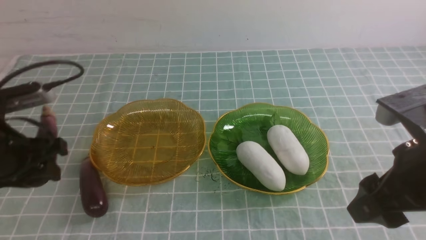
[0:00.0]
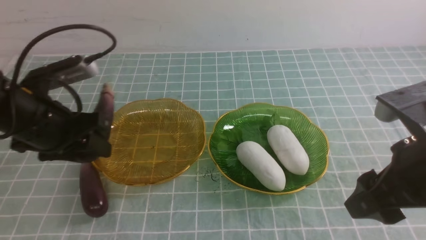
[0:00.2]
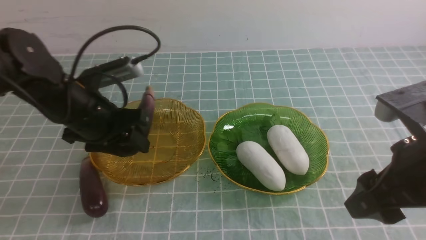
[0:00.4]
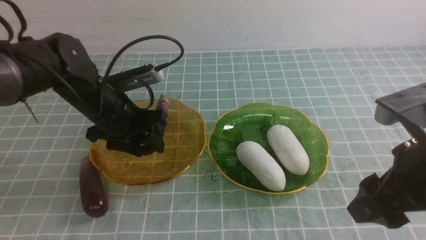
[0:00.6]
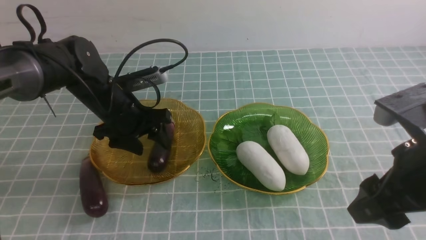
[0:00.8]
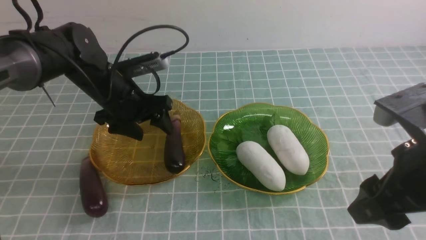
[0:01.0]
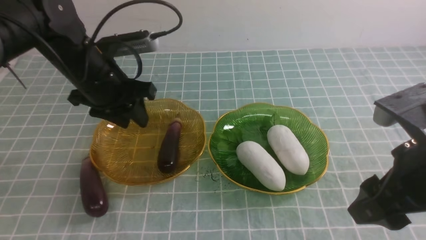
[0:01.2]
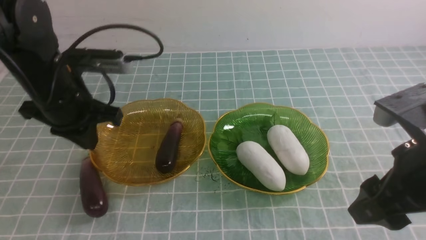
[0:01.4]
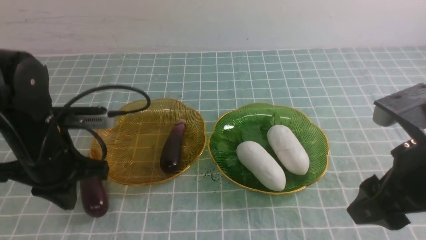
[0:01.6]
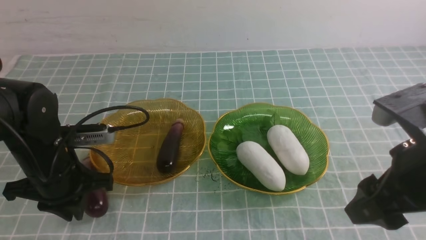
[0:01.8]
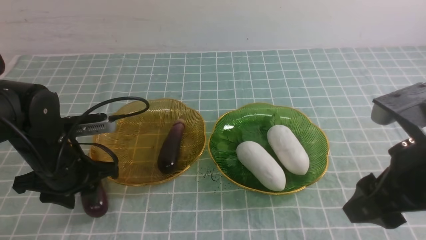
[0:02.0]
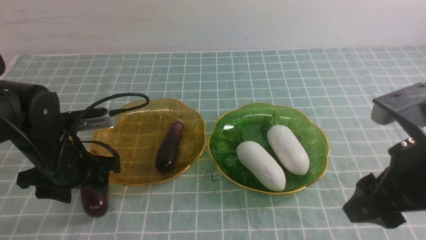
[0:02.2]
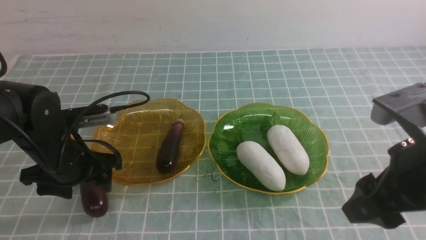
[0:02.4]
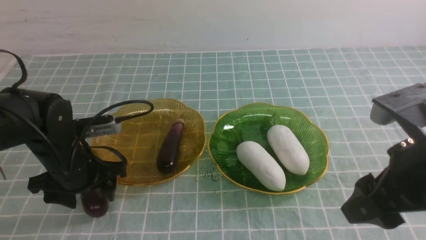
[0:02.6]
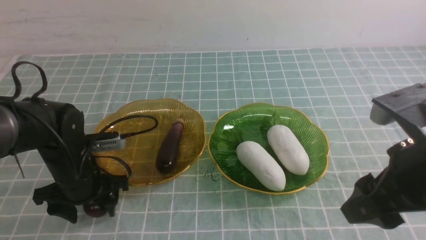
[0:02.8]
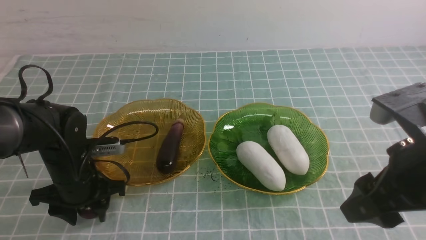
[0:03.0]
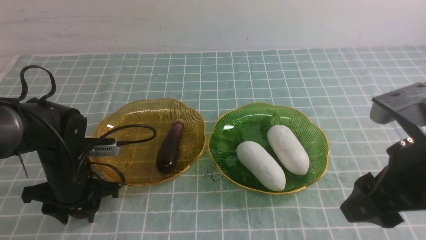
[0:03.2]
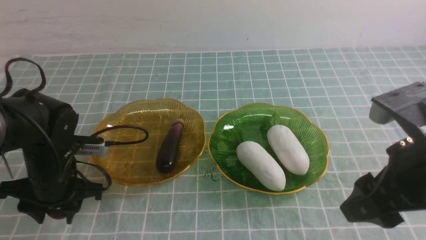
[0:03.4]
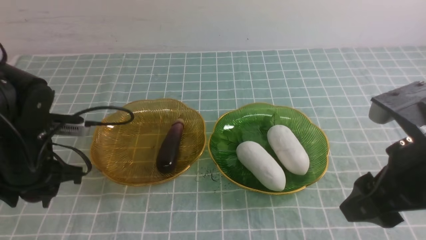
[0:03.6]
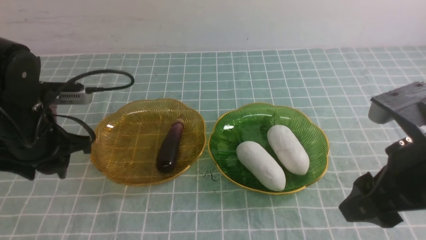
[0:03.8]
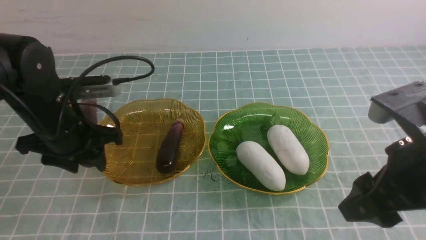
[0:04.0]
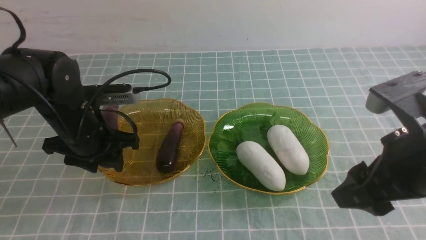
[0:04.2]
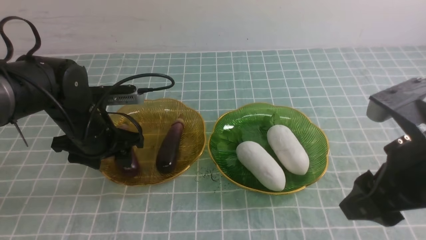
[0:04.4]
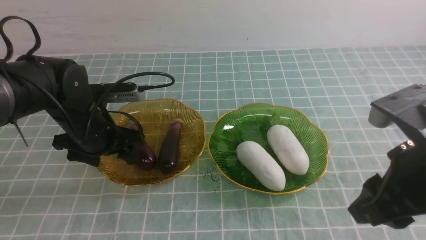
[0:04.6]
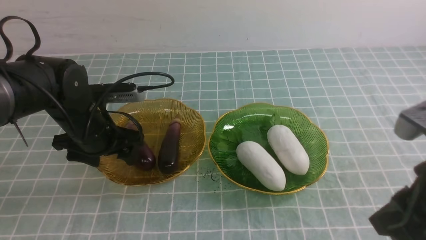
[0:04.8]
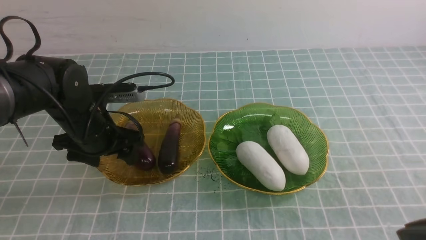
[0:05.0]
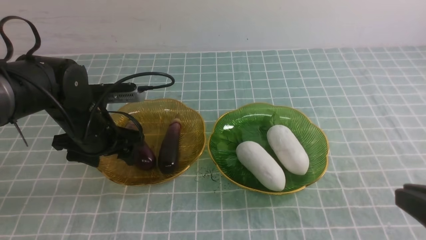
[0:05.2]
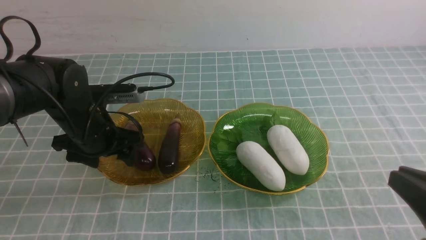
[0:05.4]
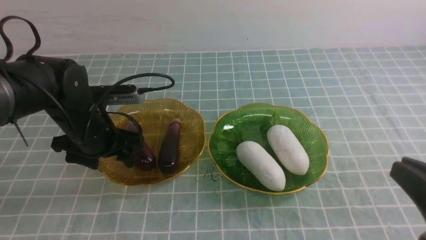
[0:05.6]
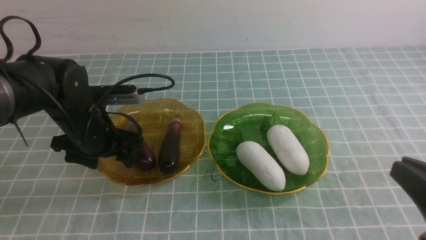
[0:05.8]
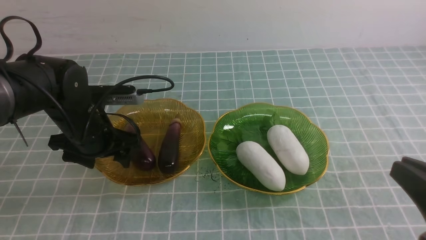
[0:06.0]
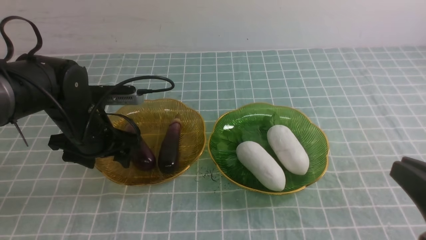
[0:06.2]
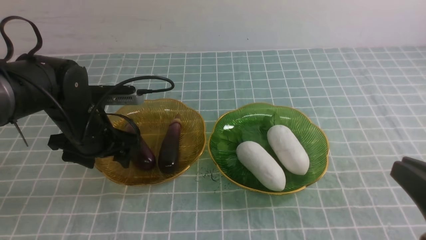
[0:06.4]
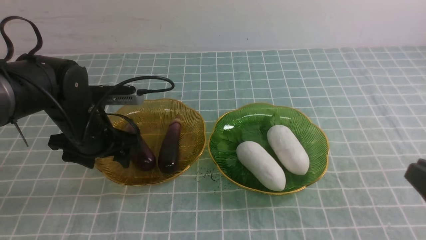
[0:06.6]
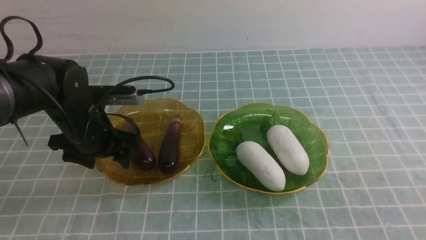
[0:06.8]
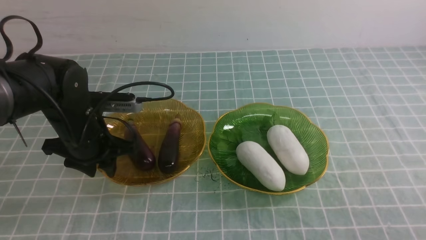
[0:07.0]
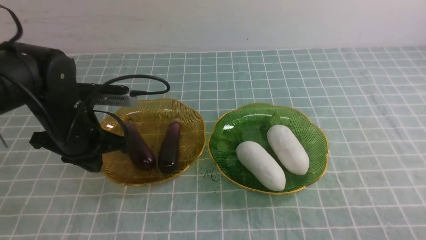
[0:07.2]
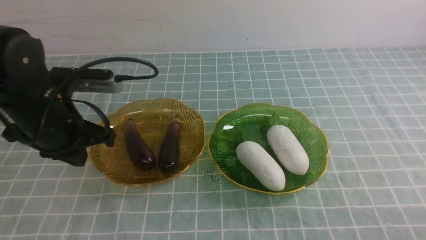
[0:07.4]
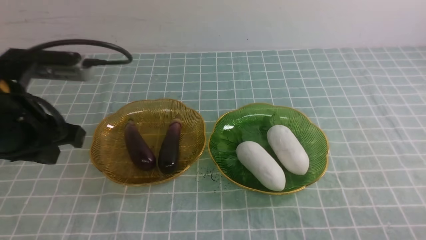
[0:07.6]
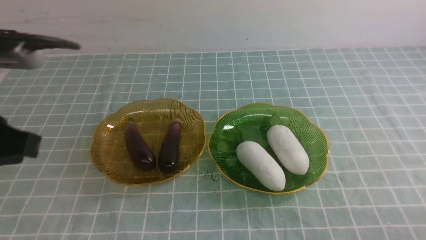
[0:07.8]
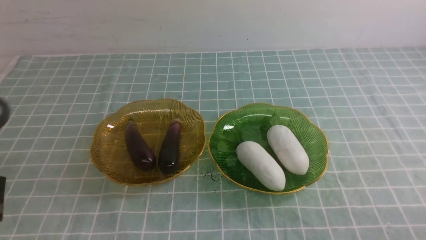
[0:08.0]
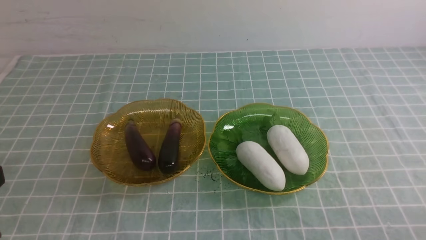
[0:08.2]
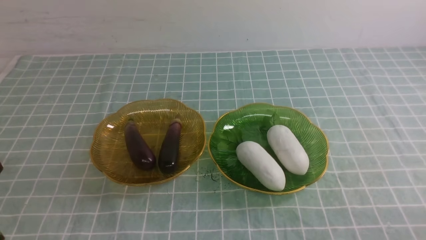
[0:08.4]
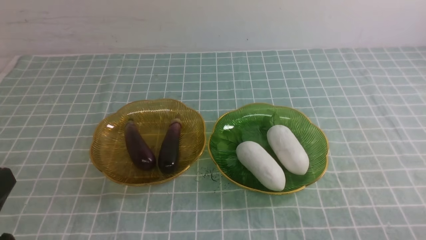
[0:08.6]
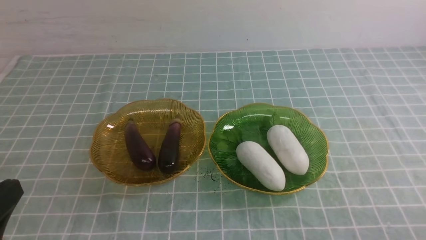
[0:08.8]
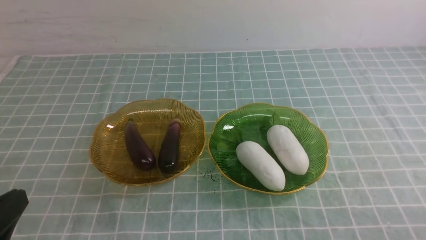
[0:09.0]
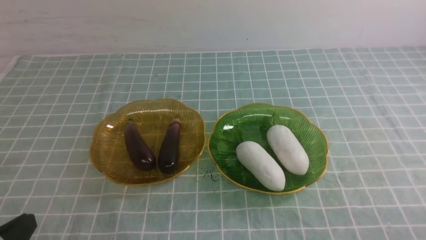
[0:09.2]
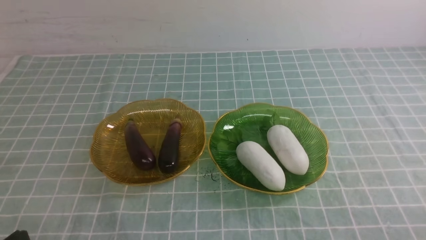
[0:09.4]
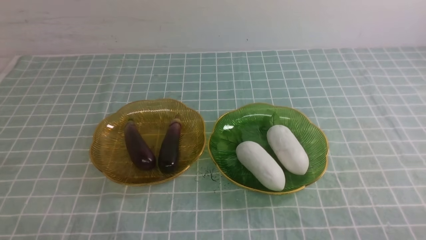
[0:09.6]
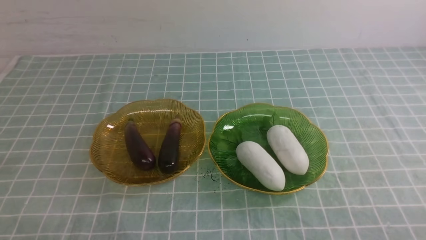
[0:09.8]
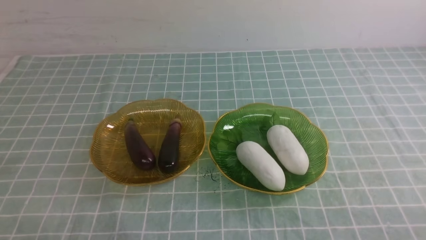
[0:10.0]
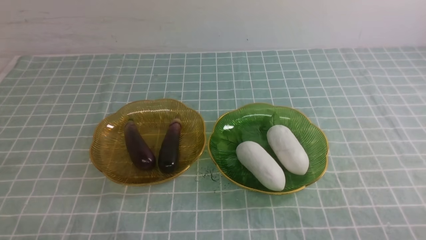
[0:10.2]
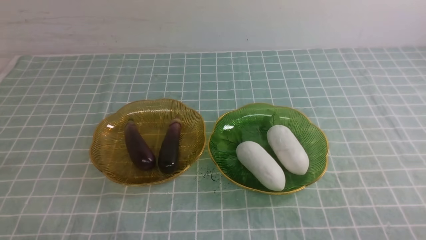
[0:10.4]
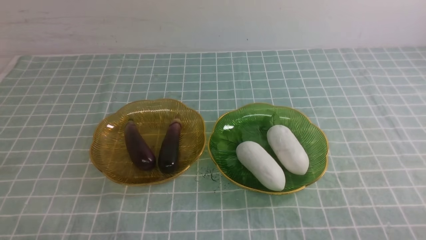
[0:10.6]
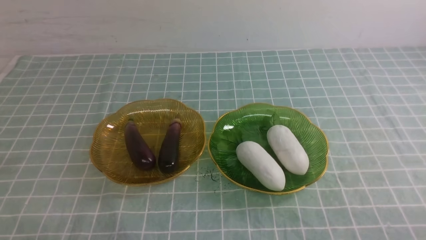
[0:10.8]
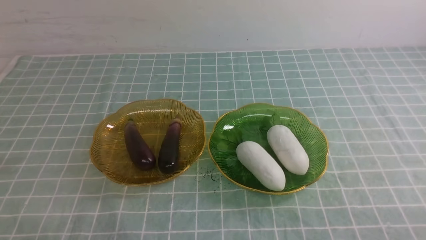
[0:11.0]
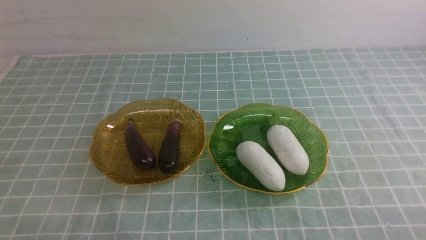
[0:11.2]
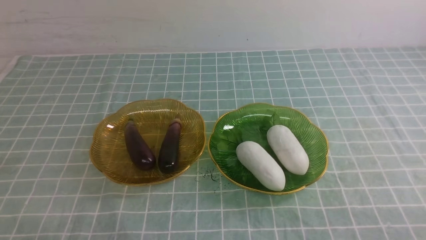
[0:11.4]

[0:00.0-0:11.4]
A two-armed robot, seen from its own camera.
Step, 0:01.2 to 0:04.6: use the left arm to grab an eggplant and put it into the left plate.
0:00.0 to 0:01.4: The left gripper travels forward and to the right by roughly 10 cm, and closes up.
0:01.4 to 0:02.8: The left gripper travels downward by some 10 cm, and opens its fingers.
0:02.8 to 0:04.2: The left gripper heads upward, covering approximately 5 cm.
0:04.2 to 0:05.6: The right gripper heads backward and to the right, covering about 10 cm, and closes.
0:05.6 to 0:07.2: The left gripper closes its fingers; the right gripper is displaced downward by roughly 10 cm.
0:07.2 to 0:08.6: The left gripper heads backward, covering roughly 25 cm.
0:10.0 to 0:11.4: Neither gripper changes place.
